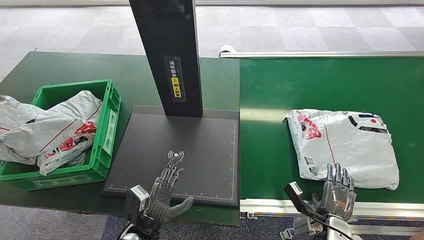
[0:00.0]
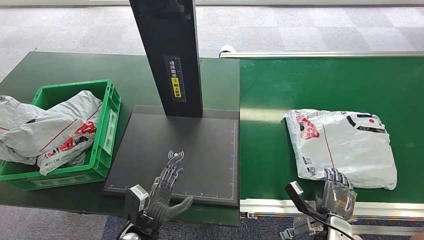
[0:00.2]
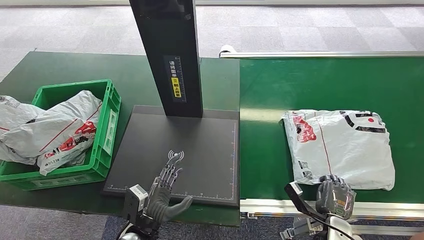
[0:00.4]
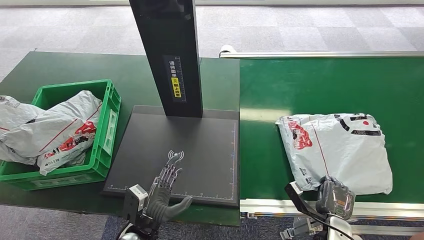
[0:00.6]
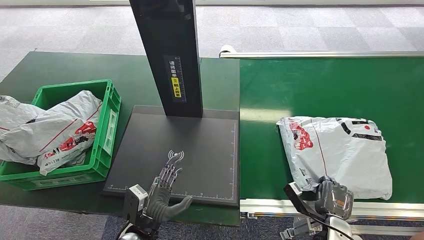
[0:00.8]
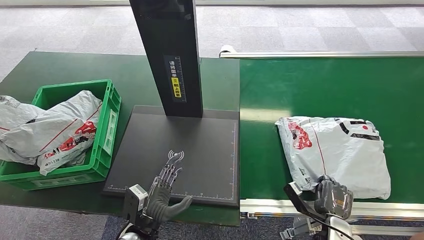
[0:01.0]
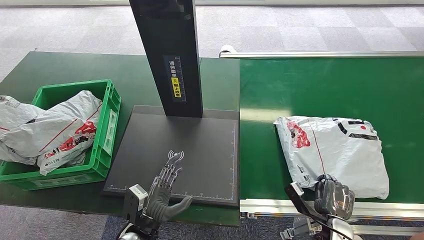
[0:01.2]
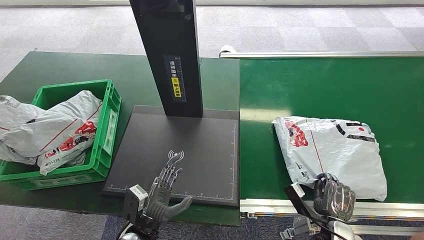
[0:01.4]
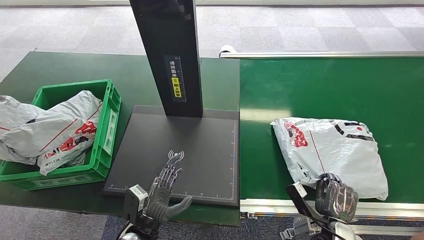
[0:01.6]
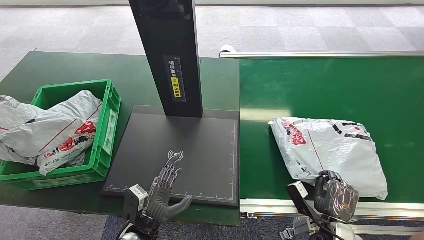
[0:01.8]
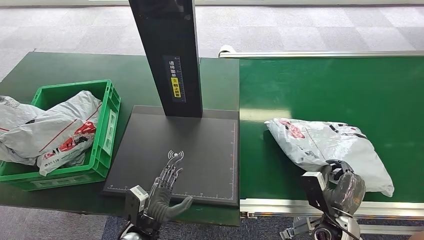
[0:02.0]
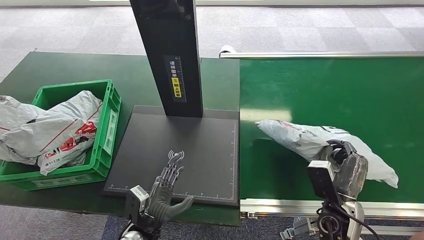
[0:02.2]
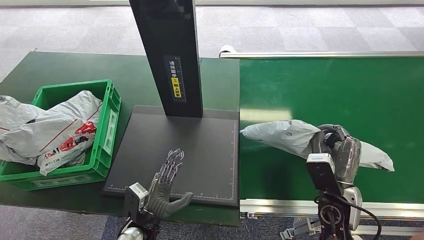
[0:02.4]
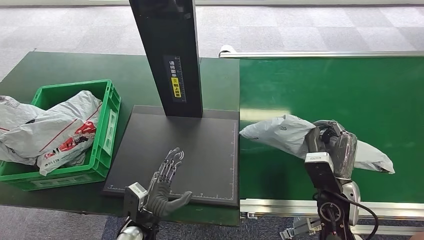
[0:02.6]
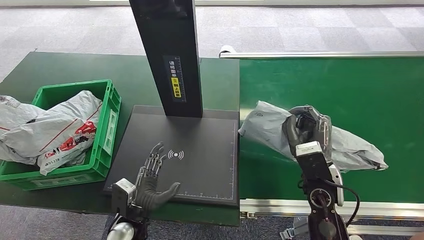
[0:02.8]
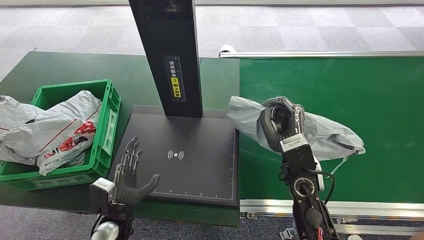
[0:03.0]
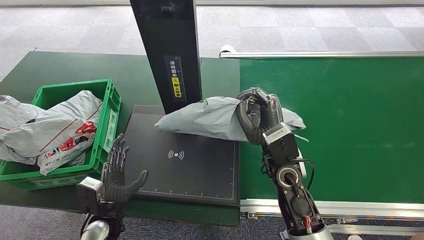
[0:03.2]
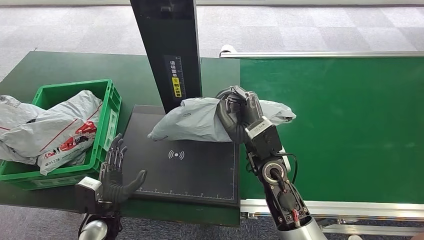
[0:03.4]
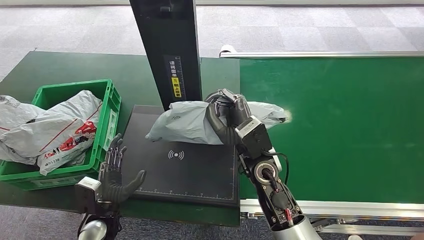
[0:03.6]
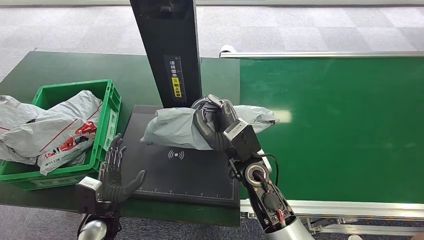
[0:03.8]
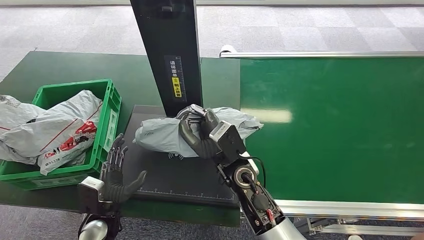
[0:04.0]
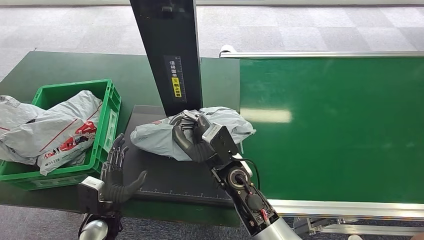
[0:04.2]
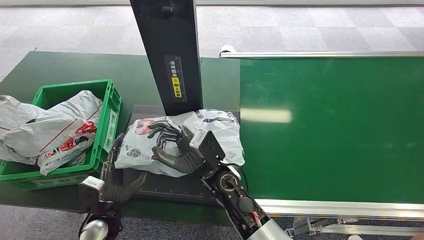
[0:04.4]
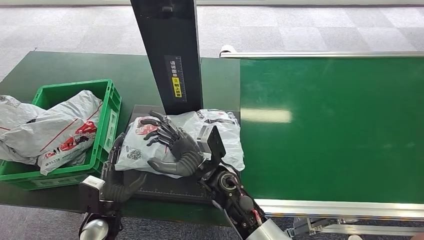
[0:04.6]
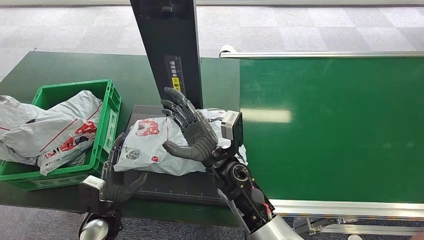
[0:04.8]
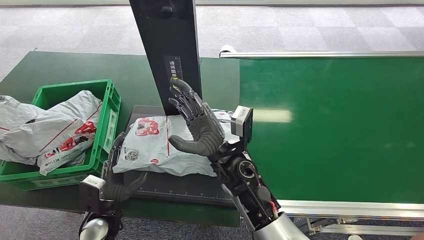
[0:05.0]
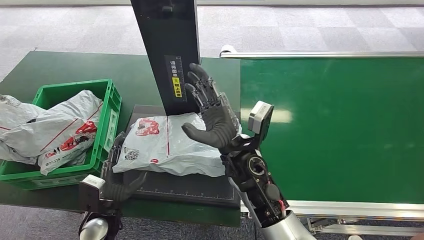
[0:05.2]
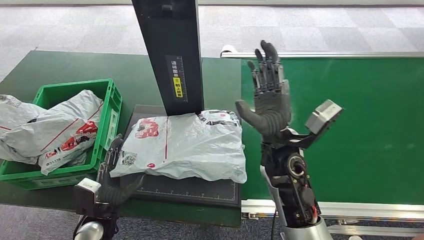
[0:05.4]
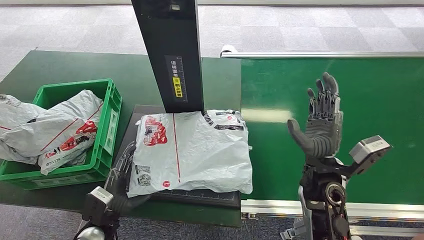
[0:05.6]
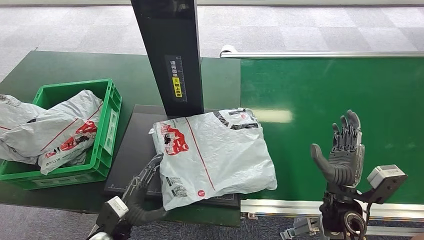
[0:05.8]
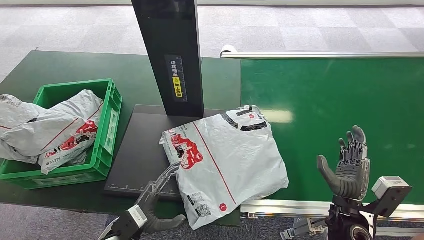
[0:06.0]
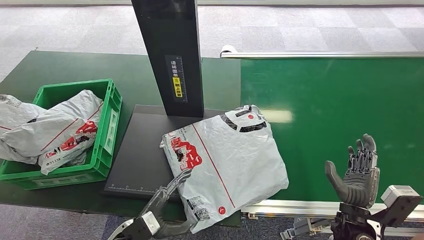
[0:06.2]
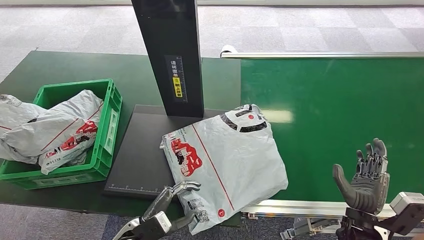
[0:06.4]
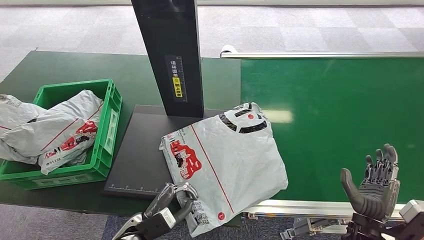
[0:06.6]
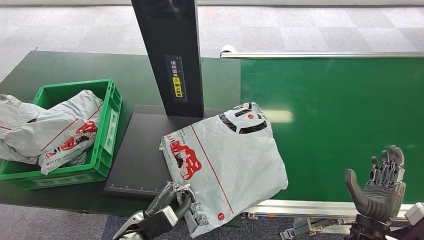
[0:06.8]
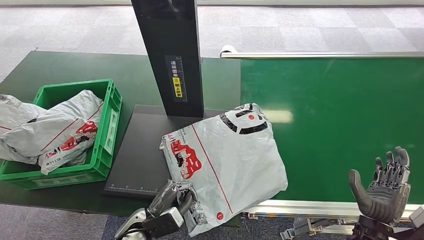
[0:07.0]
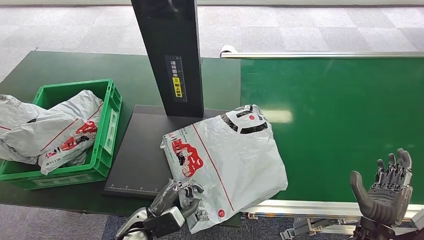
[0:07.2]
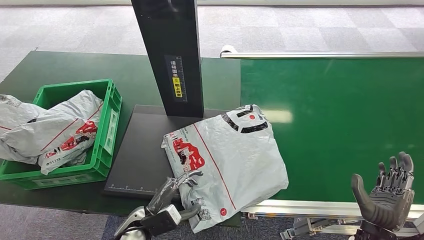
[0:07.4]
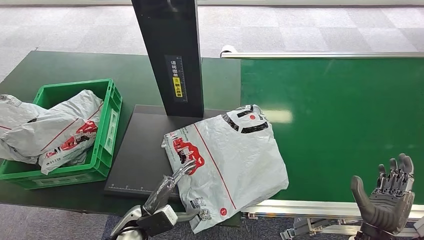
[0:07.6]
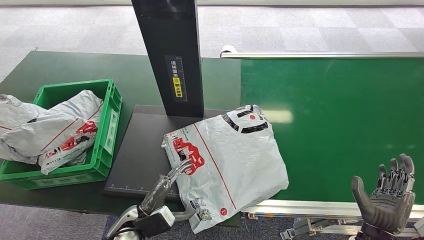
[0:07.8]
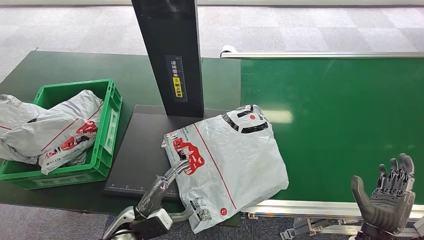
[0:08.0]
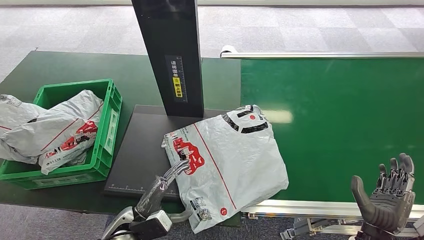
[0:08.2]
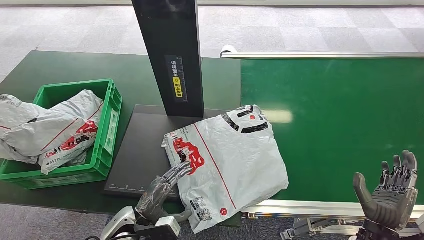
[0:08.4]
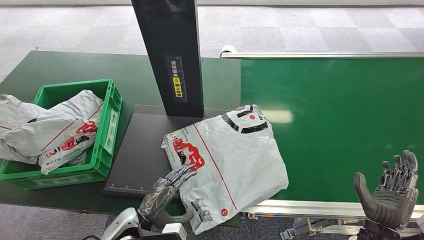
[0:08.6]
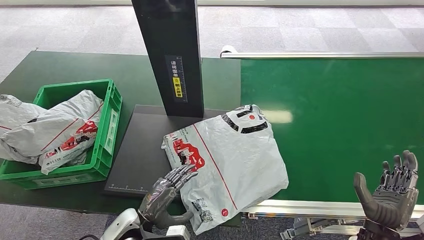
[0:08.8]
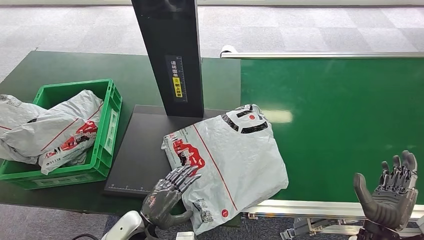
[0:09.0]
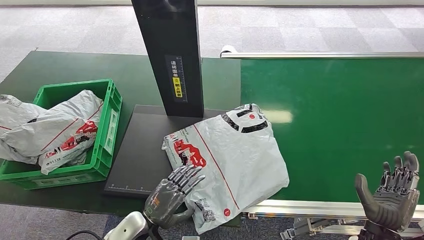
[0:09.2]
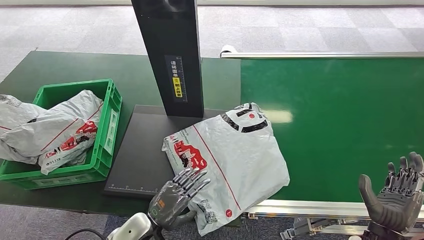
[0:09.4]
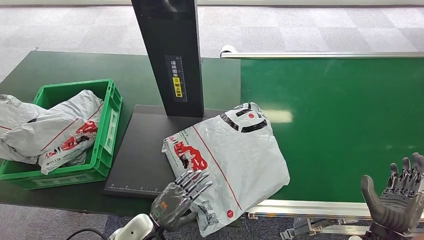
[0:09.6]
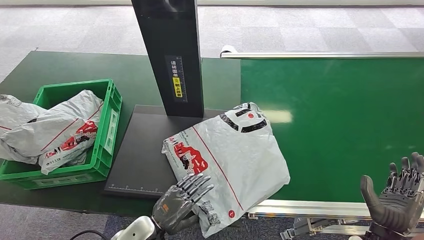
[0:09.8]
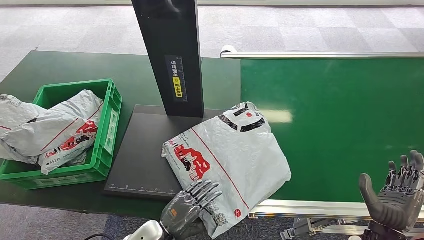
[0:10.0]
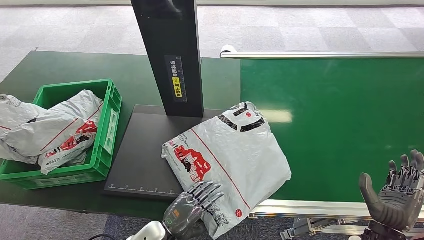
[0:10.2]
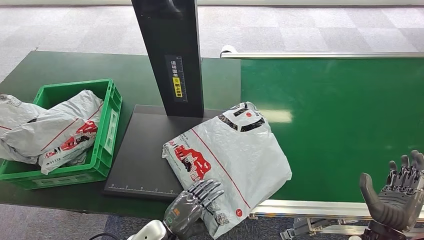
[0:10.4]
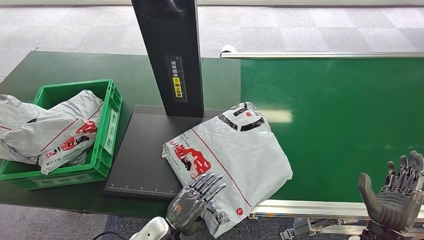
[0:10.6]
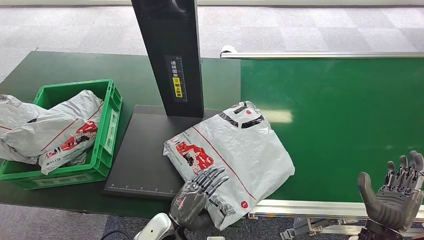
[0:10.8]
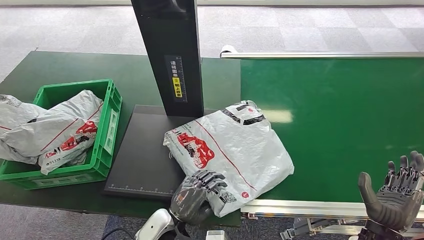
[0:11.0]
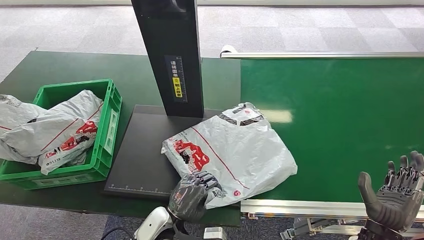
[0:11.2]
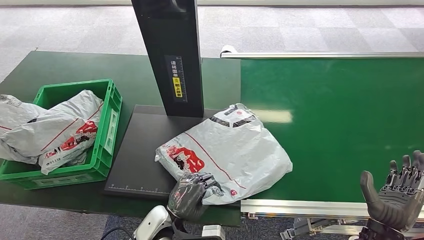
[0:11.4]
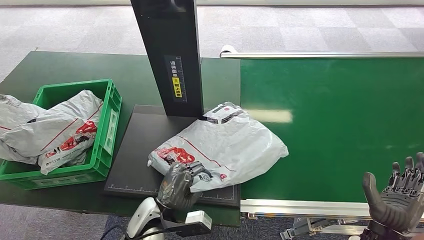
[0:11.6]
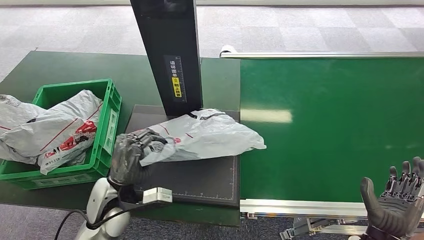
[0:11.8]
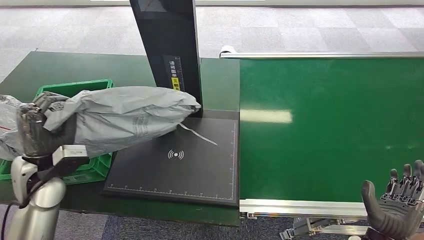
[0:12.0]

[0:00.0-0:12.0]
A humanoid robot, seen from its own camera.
Step, 0.0 to 2.6 s: Pick up the package from the conveyor belt.
Step, 3.0 to 5.4 s: Place the package onto the inbound machine.
1.6 to 3.0 s: The left hand travels to the left by some 5 cm. The right hand shifts approximately 25 cm upward, to the left and forward.
3.0 to 4.4 s: The right hand shifts approximately 15 cm to the left.
6.0 to 7.6 s: The right hand is displaced backward by about 5 cm.
9.0 to 10.4 s: The left hand shifts by approximately 5 cm.

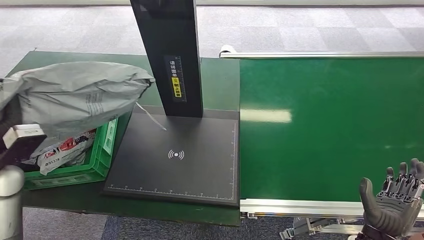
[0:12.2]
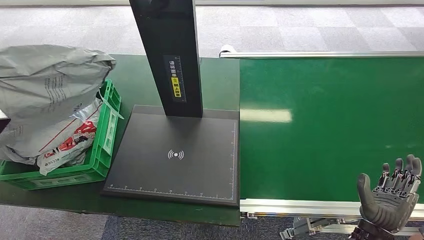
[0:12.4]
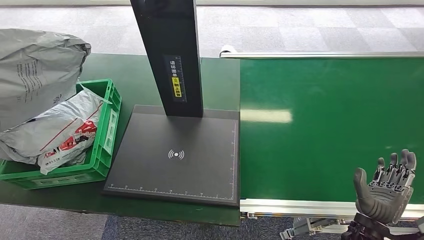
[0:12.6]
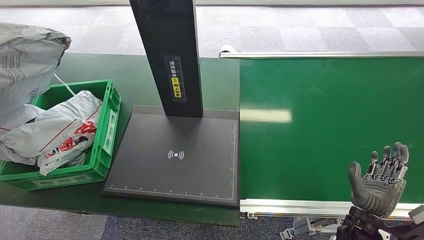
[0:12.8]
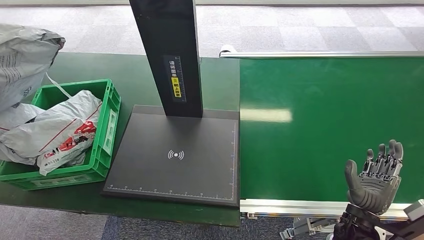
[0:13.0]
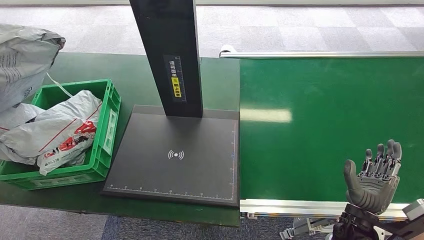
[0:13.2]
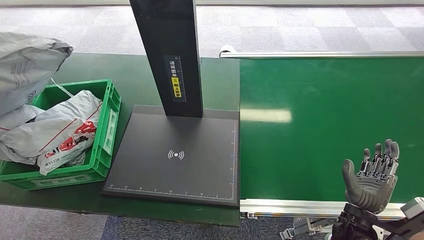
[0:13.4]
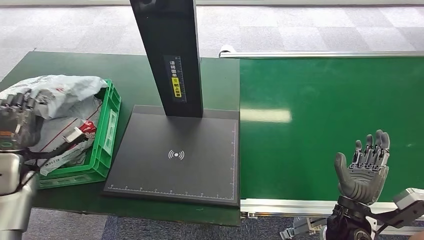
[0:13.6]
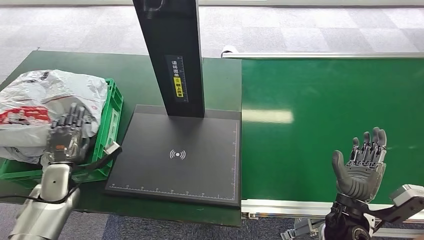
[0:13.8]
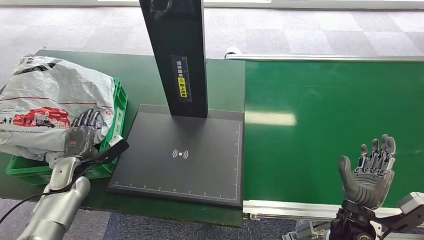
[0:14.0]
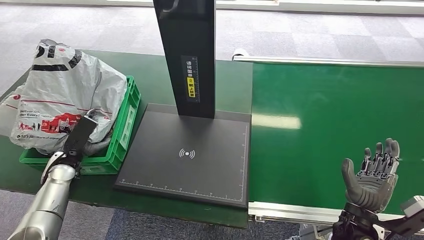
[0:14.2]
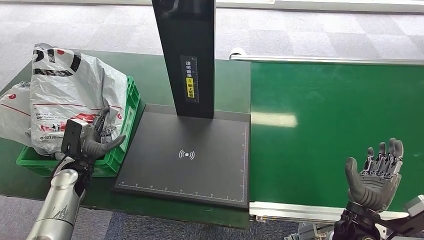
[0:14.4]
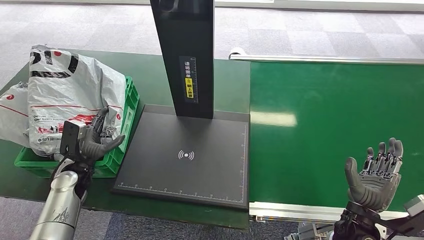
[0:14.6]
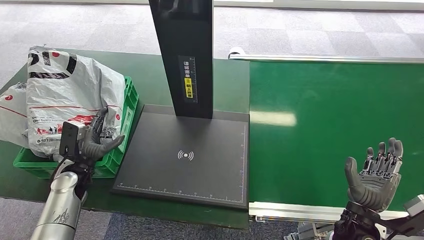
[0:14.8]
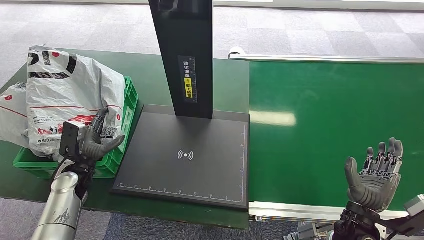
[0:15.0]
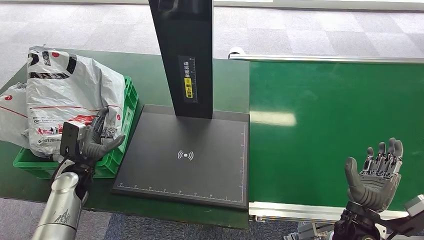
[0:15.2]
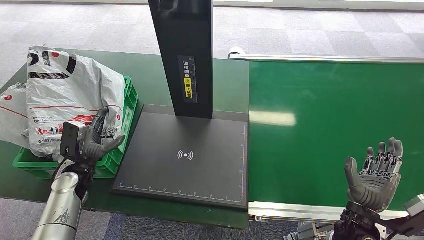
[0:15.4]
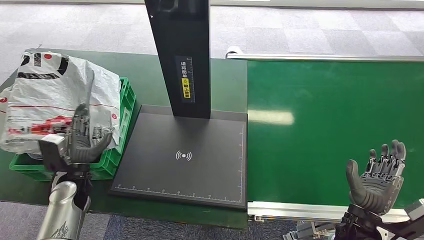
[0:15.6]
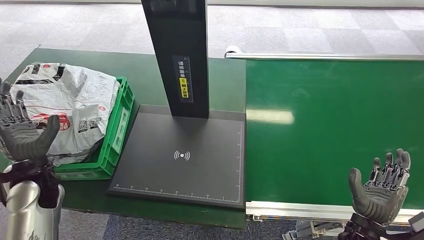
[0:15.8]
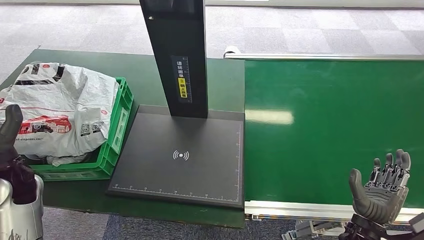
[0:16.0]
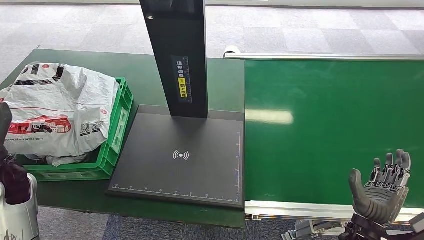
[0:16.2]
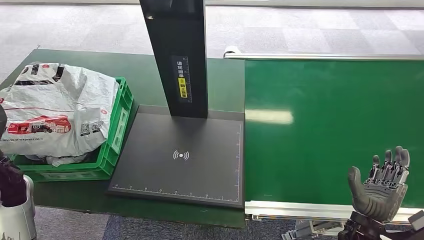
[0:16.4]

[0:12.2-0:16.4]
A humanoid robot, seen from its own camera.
Step, 12.6 to 16.2 s: Place the package into the parcel locker.
12.2 to 13.6 s: The right hand goes roughly 5 cm forward. The left hand shifts about 5 cm downward.

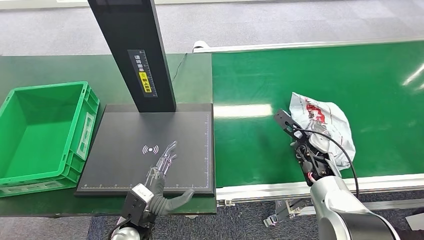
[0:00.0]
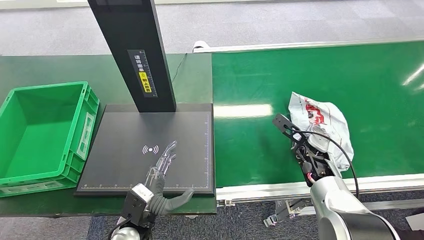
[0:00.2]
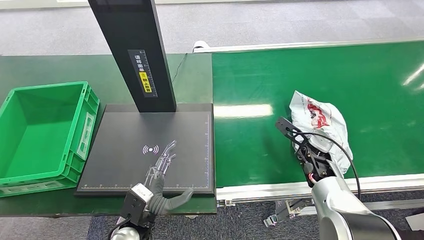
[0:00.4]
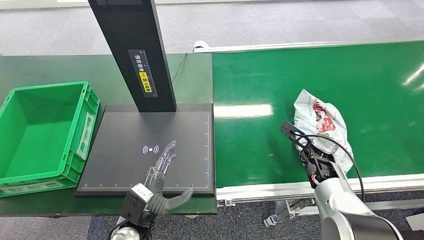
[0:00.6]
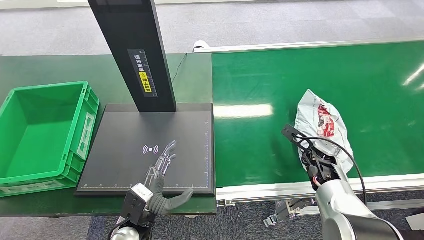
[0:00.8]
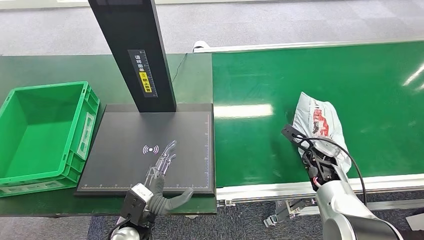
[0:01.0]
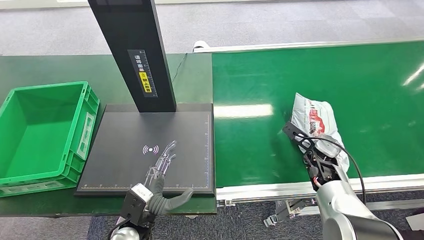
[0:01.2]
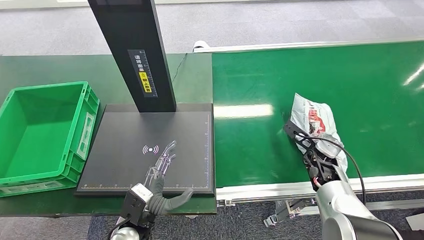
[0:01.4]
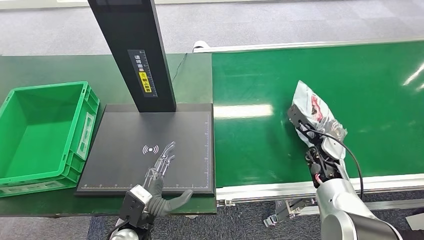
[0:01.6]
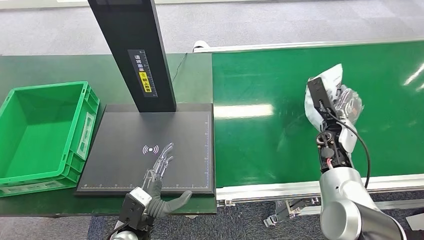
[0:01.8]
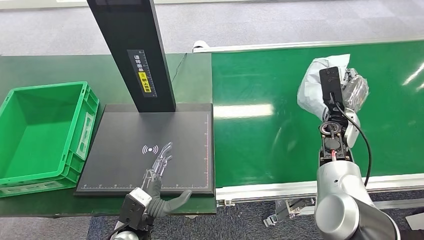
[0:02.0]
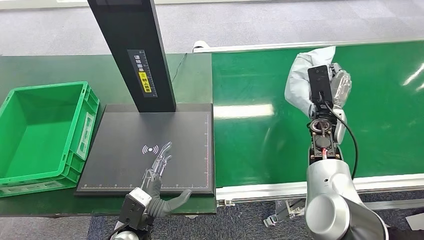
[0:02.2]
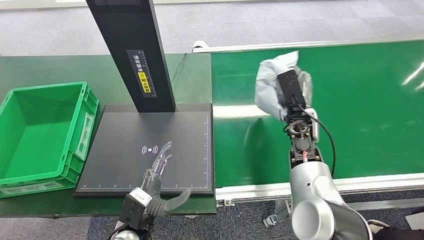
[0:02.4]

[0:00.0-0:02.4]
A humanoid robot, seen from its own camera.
Step, 0.0 to 2.2 s: Pick up the package from the conveyor belt.
0.0 to 1.2 s: The hands stay close to where they were, moving slightly.
1.2 to 2.4 s: The right hand goes approximately 15 cm to the left, upward and forward.
